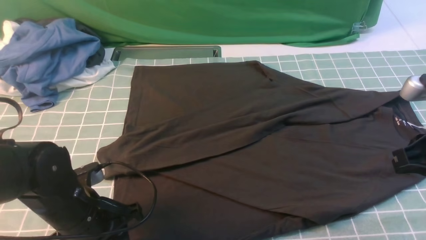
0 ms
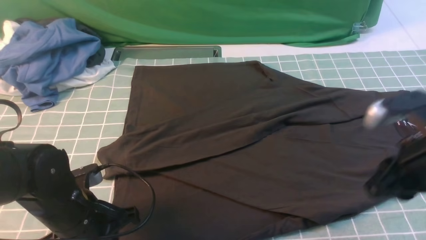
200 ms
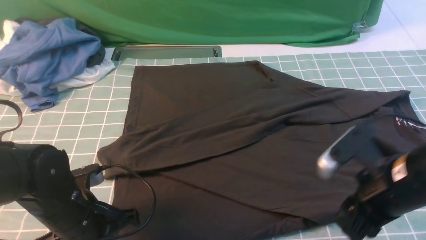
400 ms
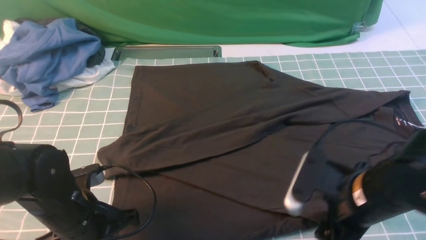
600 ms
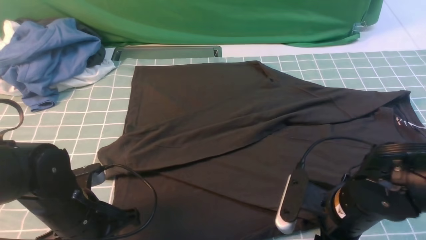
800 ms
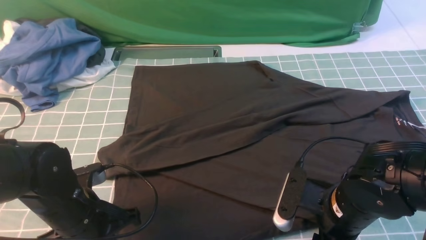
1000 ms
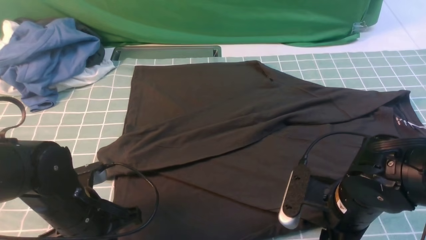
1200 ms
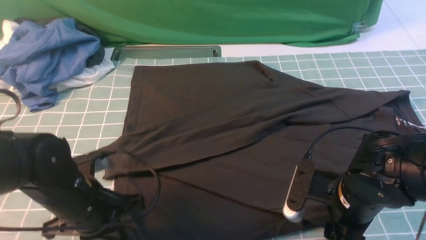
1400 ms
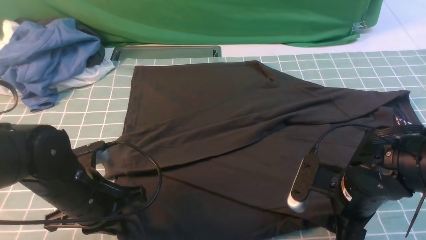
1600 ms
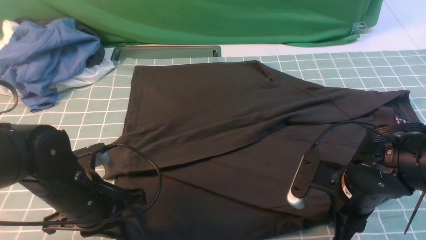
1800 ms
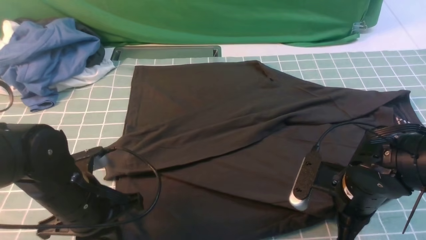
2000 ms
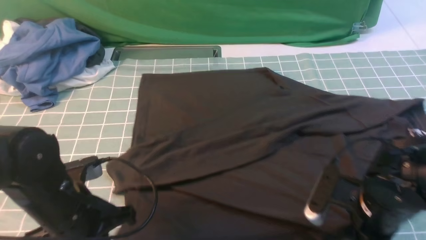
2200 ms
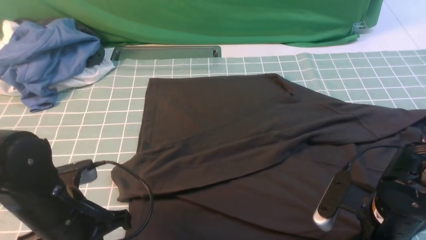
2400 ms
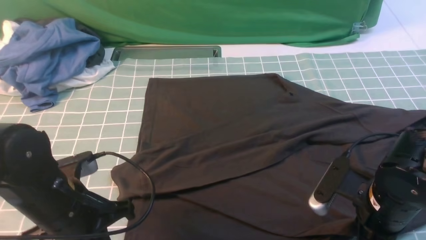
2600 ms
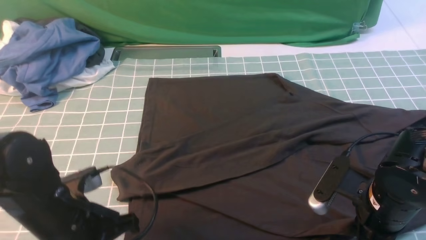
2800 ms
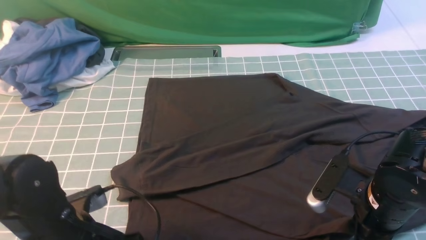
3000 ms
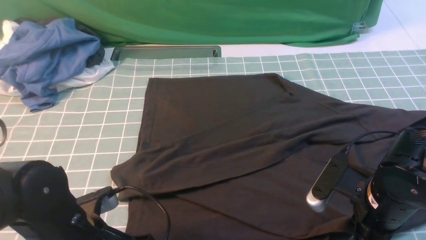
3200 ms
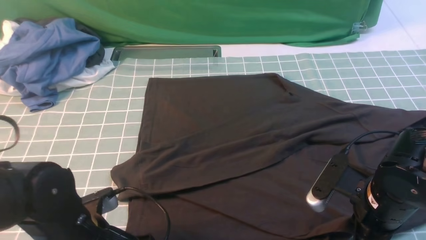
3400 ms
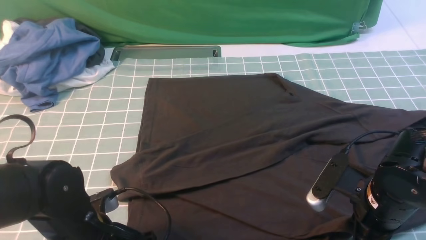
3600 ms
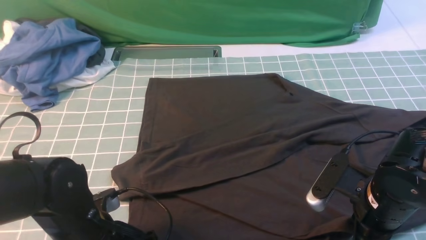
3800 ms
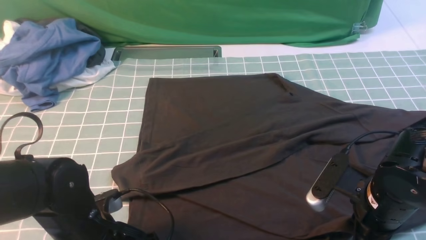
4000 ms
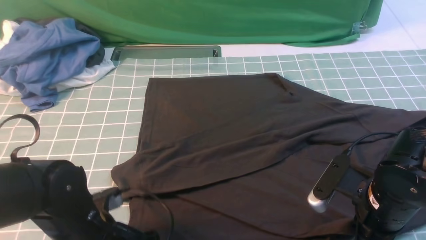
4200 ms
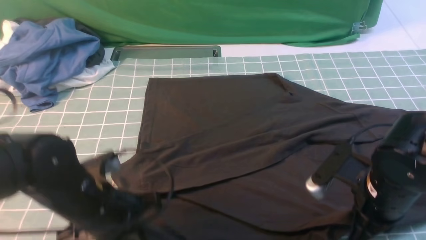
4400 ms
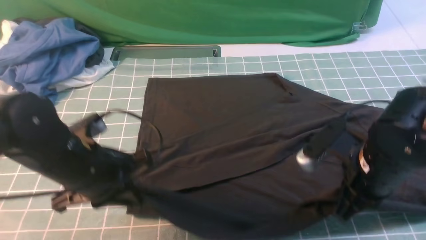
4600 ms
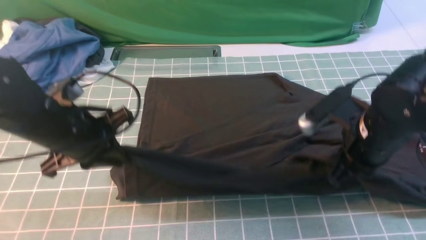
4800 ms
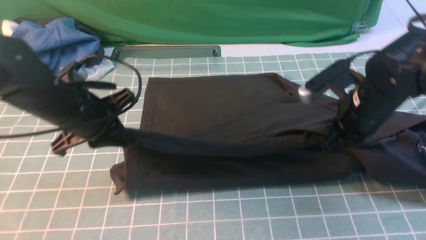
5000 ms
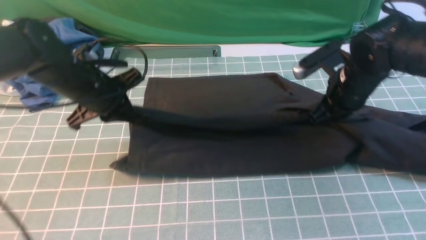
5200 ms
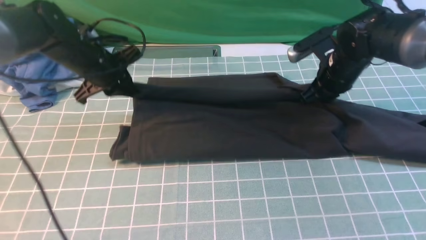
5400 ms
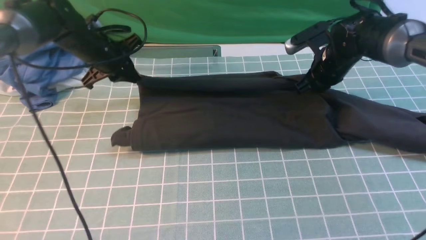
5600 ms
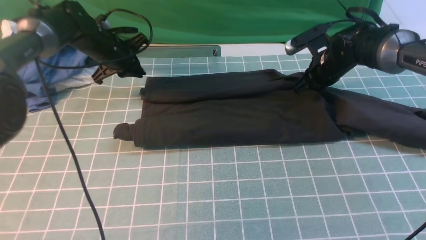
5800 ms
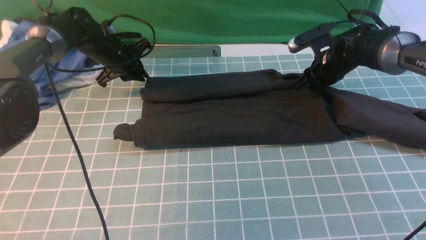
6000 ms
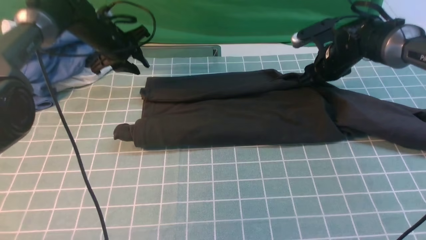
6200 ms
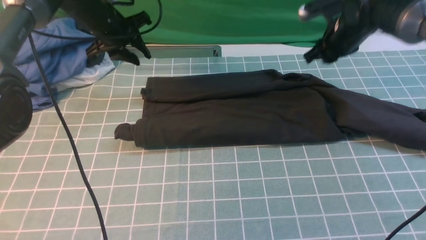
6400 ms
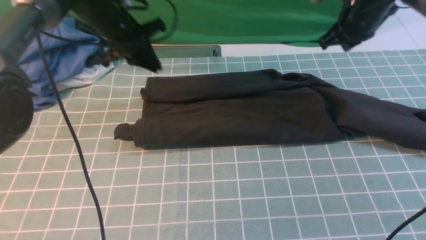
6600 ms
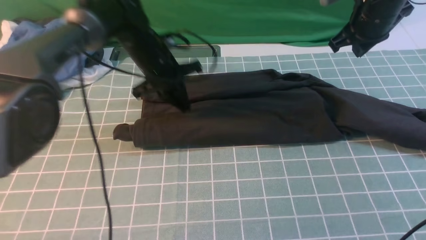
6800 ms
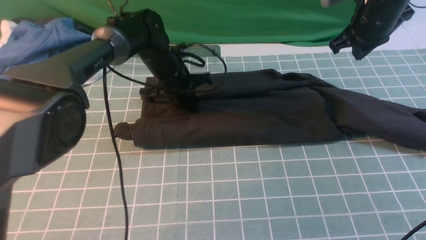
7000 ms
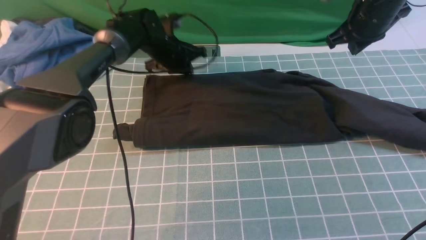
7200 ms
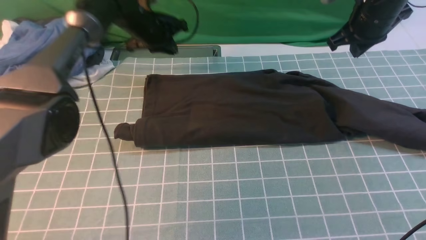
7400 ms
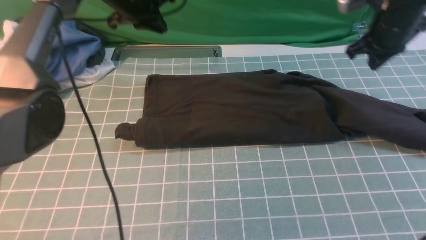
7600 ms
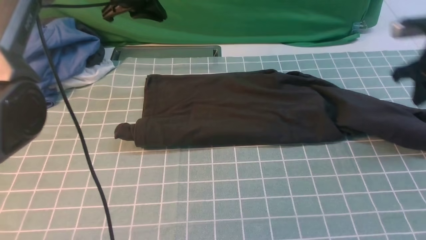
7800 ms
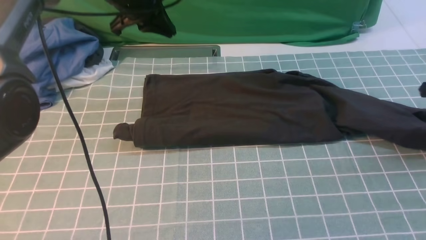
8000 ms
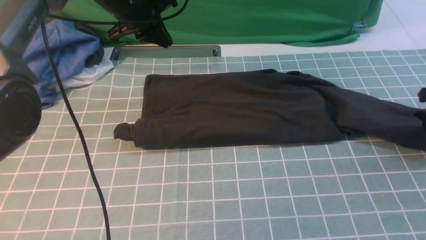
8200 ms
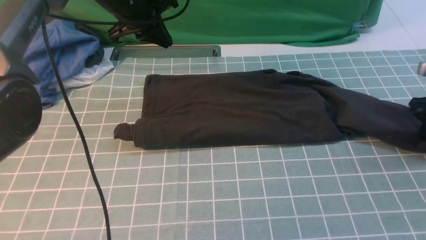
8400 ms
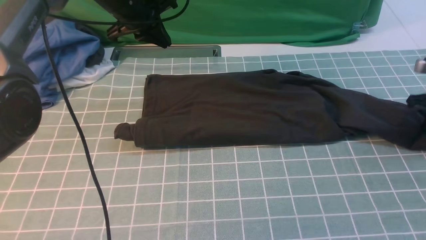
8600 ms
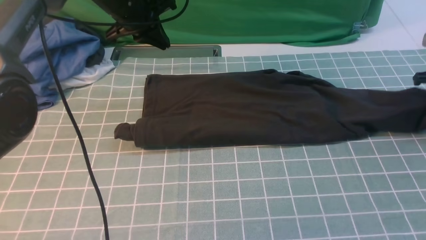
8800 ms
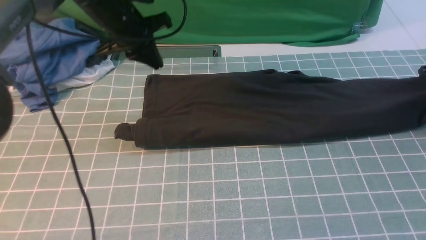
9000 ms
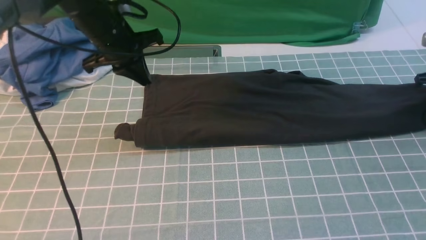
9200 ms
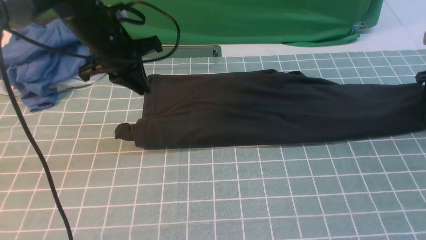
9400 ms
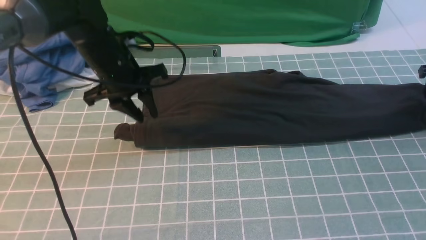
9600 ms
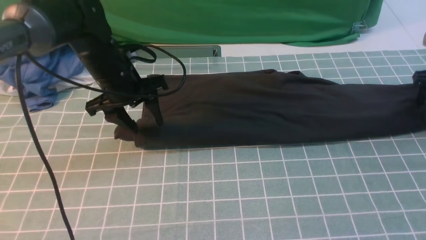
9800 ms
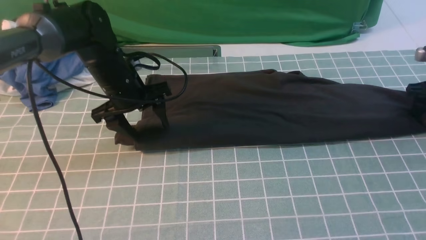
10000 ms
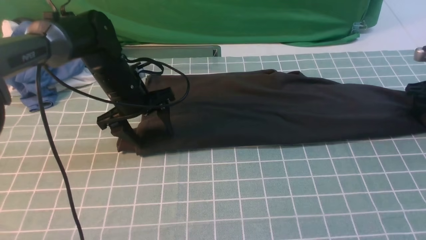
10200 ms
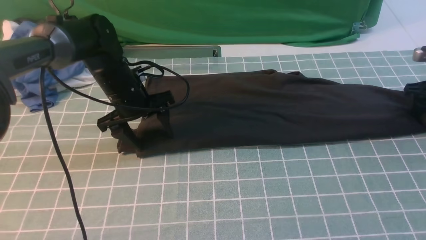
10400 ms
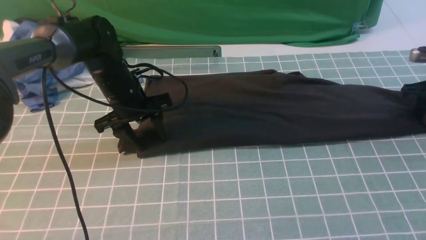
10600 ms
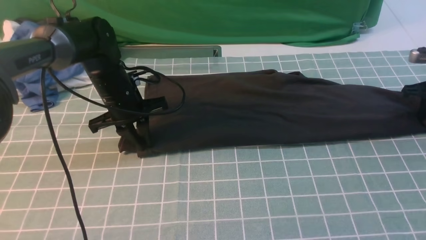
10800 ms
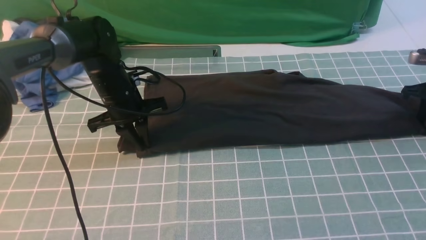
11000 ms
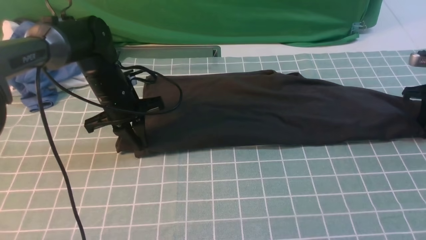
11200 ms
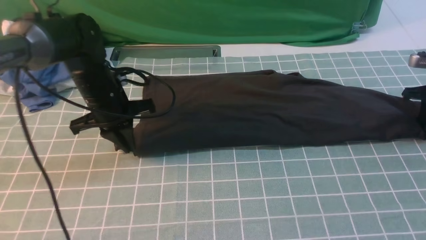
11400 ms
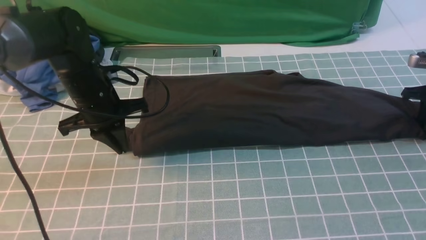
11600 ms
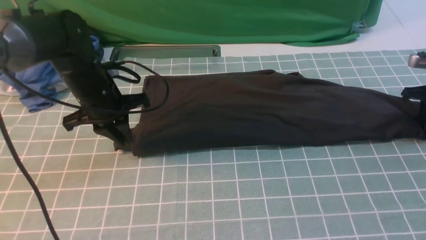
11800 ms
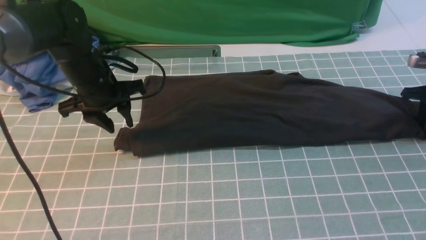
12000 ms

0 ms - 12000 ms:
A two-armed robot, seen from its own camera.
Step, 0 ms - 4000 ms: use both arms simultaneously to clamp the lower edge of the clothing fabric.
Step, 4200 ms - 6200 ms: use both arms to drag the lower edge of the fabric forward and fold it over the upper edge.
0 ms - 1600 ms: The right gripper travels downward and to the left by some 15 cm, and opens its fingers; the left gripper closes its fingers.
1600 ms - 3000 ms: The right gripper closes up. Meanwhile the left gripper is displaced backward by roughly 5 cm, and opens.
3000 ms - 4400 ms: The left gripper closes its fingers.
4400 ms - 6000 ms: The two grippers go roughly 30 cm forward. The right gripper opens.
6000 ms - 7600 ms: The left gripper moves upward and to the right, approximately 10 cm; the right gripper shifts about 15 cm upward, to the right and backward, and closes its fingers.
7600 ms - 9000 ms: The left gripper goes roughly 5 cm backward. Meanwhile the right gripper shifts roughly 15 cm to the right and downward, and opens and closes again.
9000 ms - 10400 ms: The left gripper moves downward, about 10 cm, and opens, while the right gripper opens.
10400 ms - 12000 ms: The left gripper shifts by about 5 cm, and closes, then reopens. The right gripper closes.

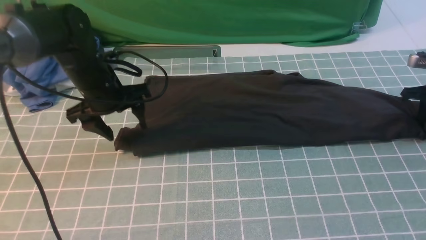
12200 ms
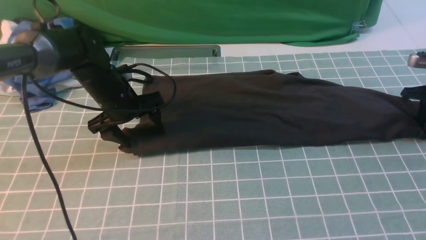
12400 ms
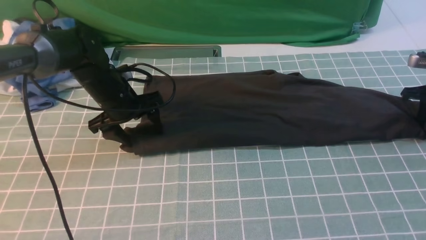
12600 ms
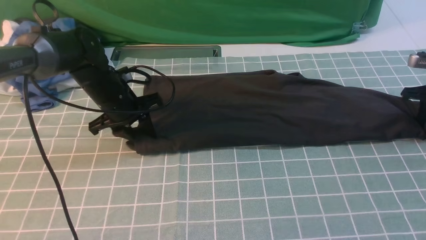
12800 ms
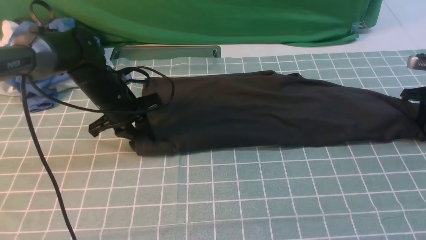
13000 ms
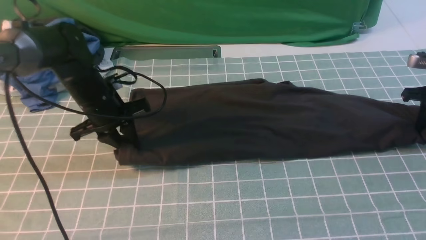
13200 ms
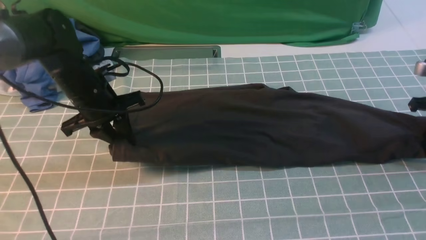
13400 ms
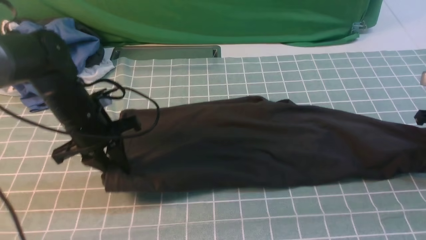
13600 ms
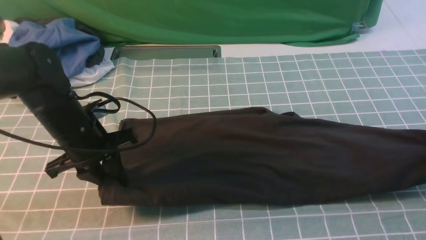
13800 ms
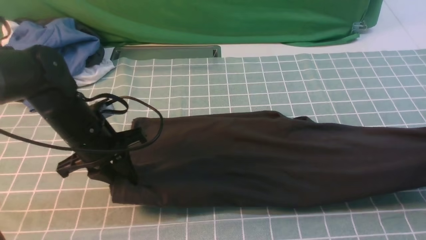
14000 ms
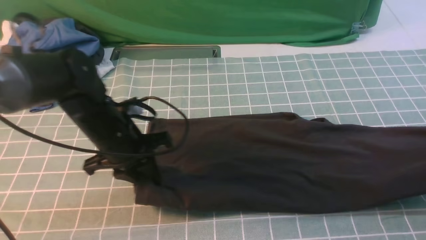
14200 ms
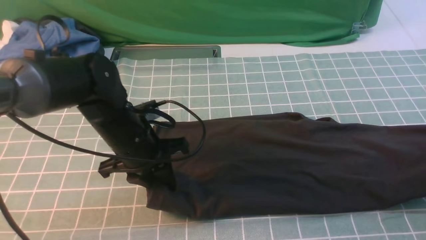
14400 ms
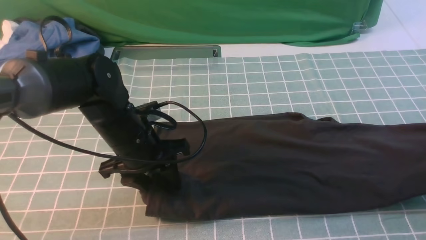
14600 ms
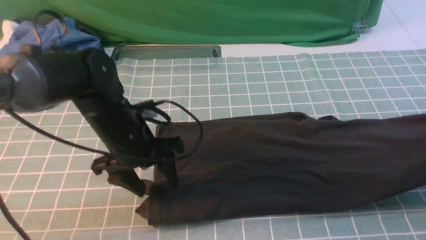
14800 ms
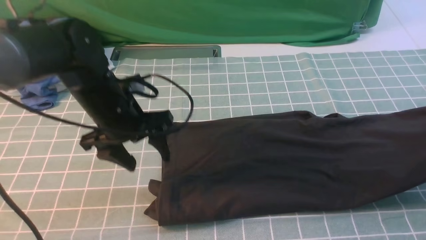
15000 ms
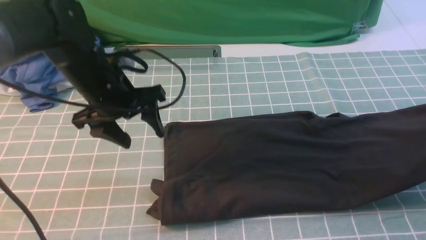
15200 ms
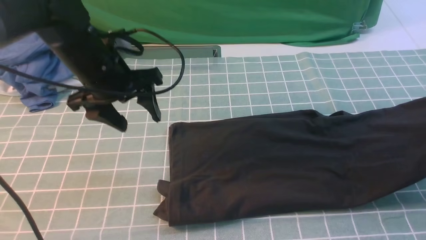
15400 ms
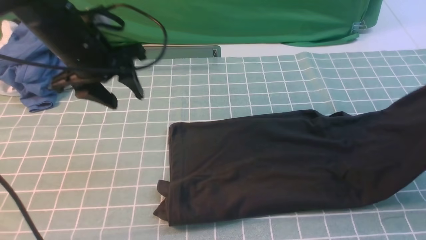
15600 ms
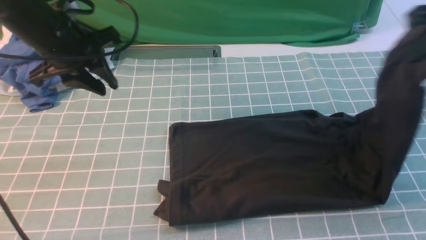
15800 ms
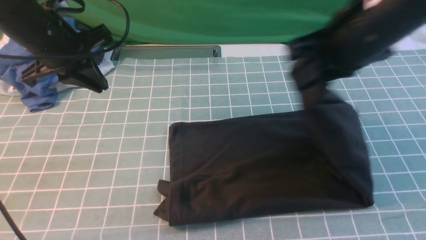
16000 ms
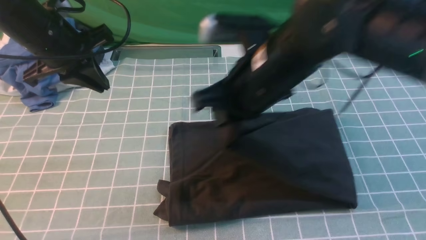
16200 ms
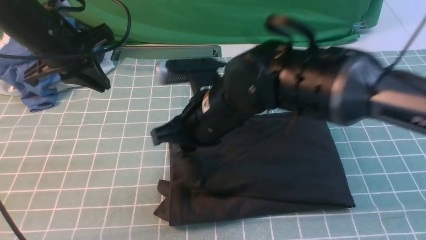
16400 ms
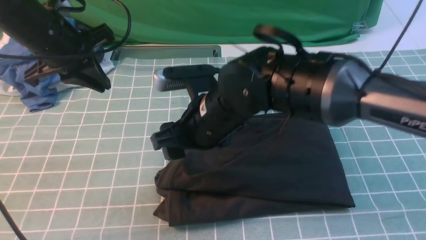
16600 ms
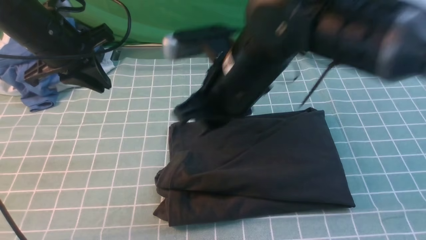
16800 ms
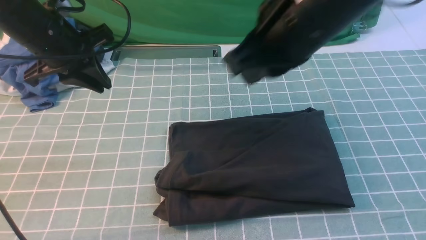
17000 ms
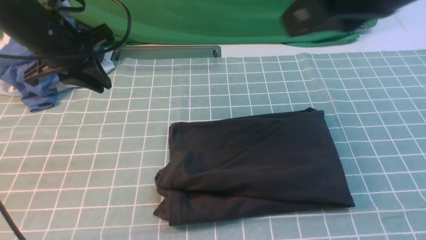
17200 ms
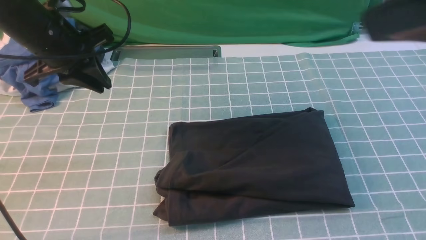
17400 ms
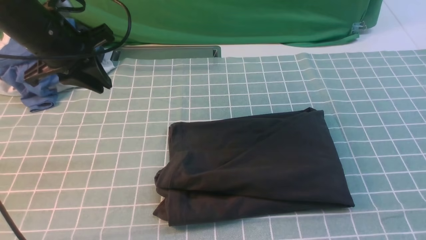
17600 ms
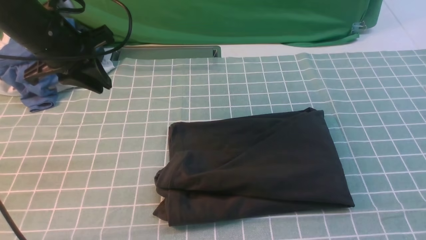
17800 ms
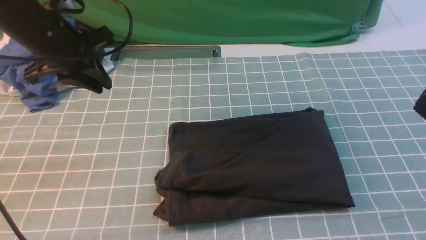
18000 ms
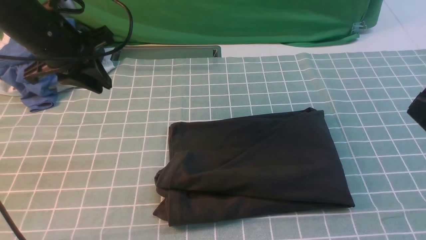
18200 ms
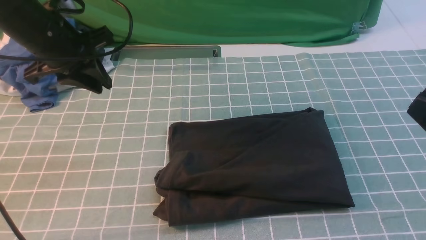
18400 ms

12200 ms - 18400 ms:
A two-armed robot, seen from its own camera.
Step, 12200 ms - 14400 ms: use the right arm to clamp the right edge of the fabric.
Step, 14600 ms - 16800 ms: use the right arm to drag the right edge of the fabric to the left and folds it over the left edge.
12200 ms - 13800 ms: The left gripper is displaced backward by roughly 10 cm, and closes; the right gripper goes roughly 10 cm backward and upward.
13800 ms - 15400 ms: Both grippers travel together upward, some 10 cm. The left gripper opens up.
15400 ms - 16800 ms: The left gripper heads to the left, covering roughly 5 cm, and closes; the right gripper moves to the left, roughly 40 cm, and opens.
16800 ms - 18400 ms: The right gripper is displaced to the right and backward by about 30 cm, and closes.
